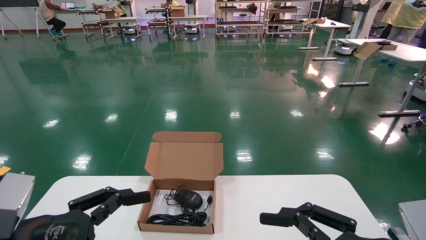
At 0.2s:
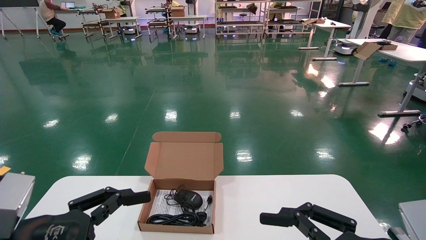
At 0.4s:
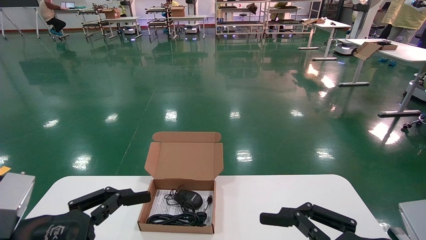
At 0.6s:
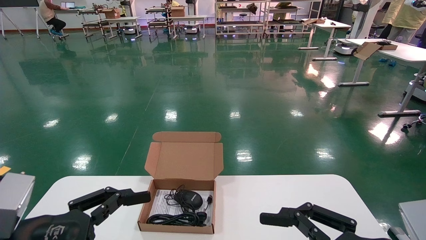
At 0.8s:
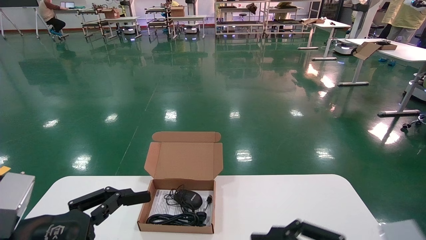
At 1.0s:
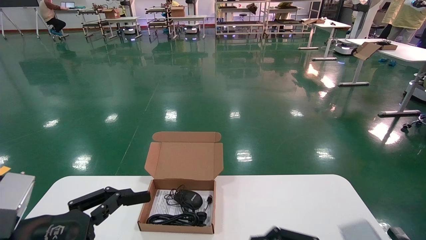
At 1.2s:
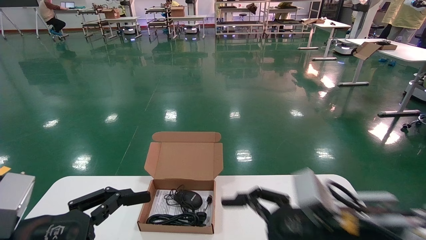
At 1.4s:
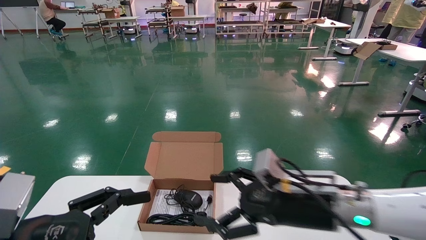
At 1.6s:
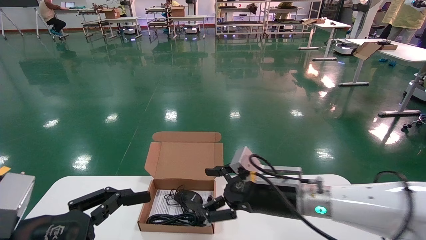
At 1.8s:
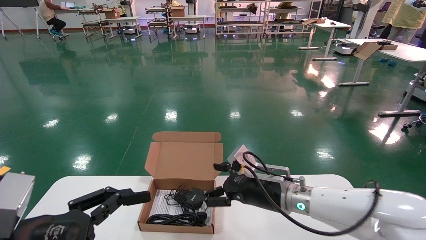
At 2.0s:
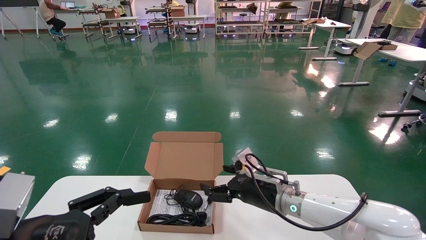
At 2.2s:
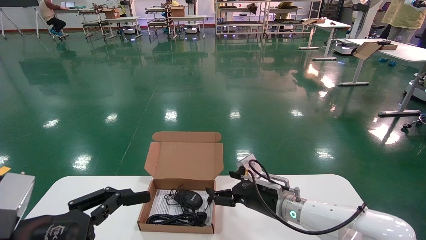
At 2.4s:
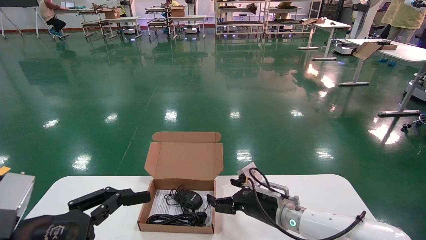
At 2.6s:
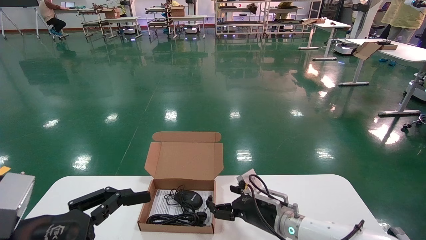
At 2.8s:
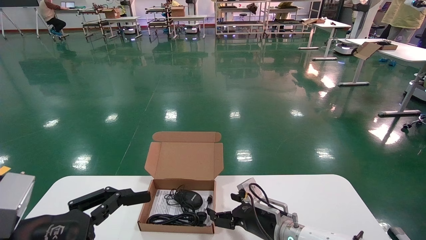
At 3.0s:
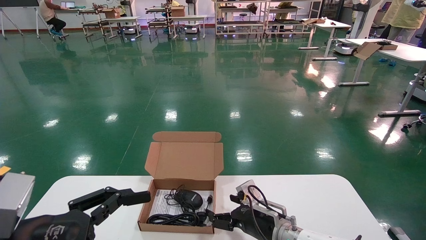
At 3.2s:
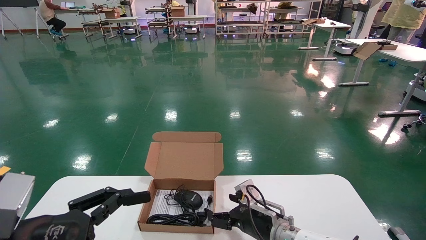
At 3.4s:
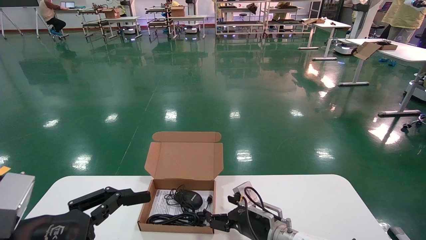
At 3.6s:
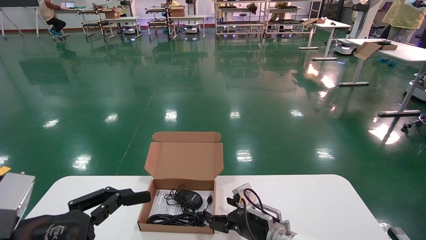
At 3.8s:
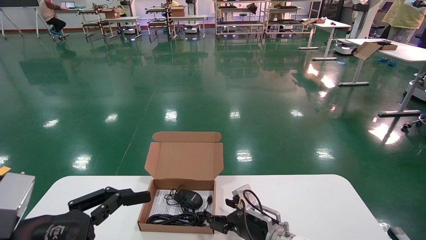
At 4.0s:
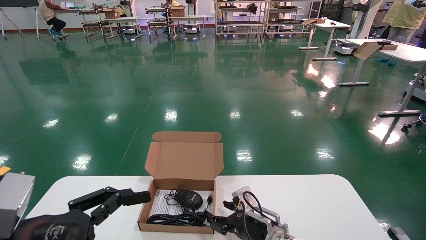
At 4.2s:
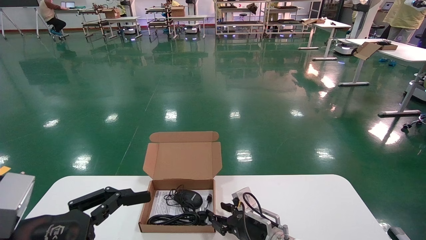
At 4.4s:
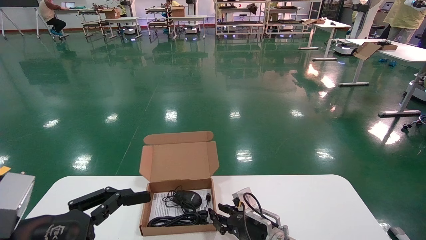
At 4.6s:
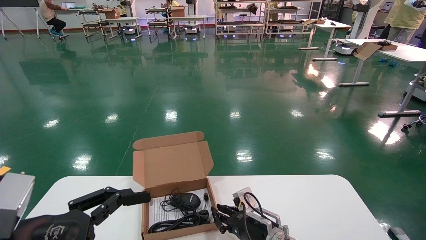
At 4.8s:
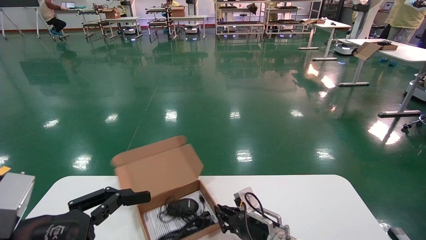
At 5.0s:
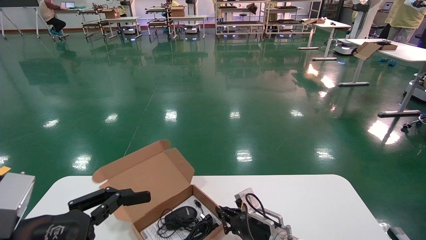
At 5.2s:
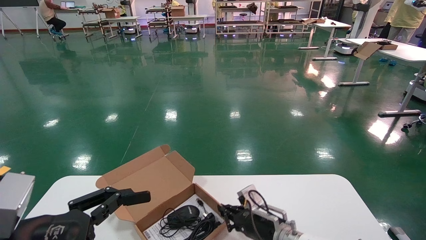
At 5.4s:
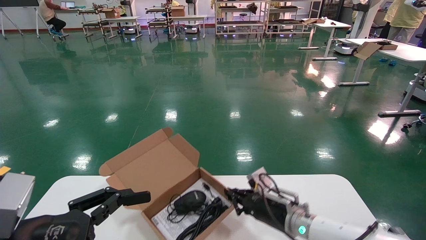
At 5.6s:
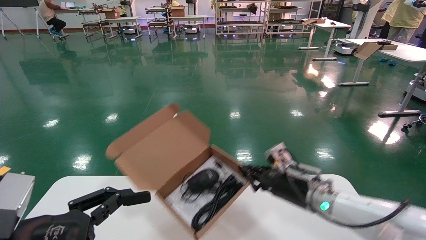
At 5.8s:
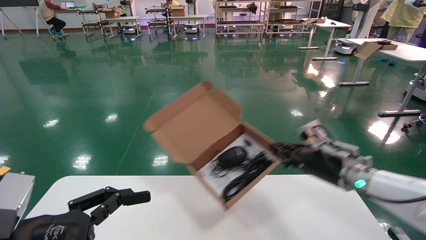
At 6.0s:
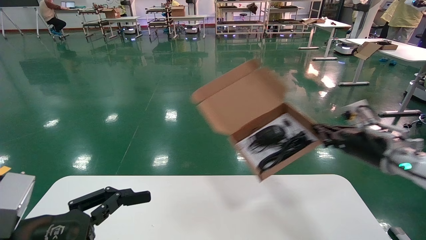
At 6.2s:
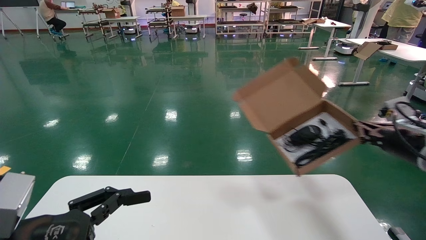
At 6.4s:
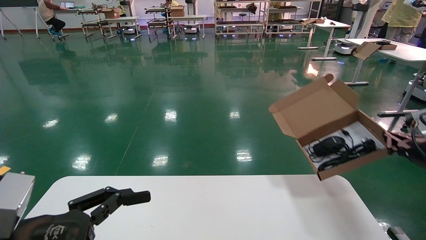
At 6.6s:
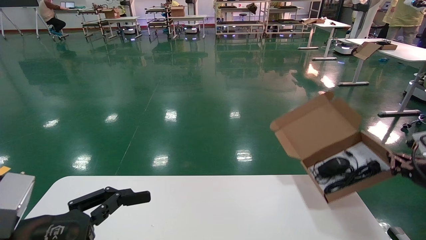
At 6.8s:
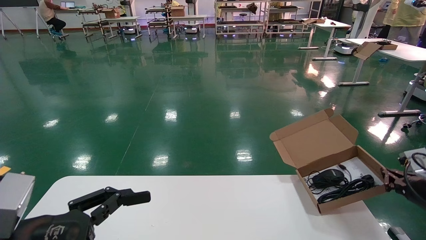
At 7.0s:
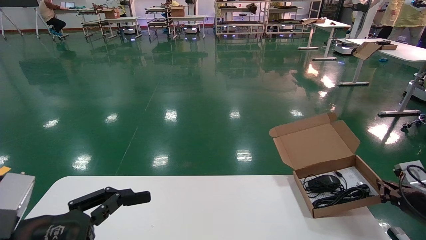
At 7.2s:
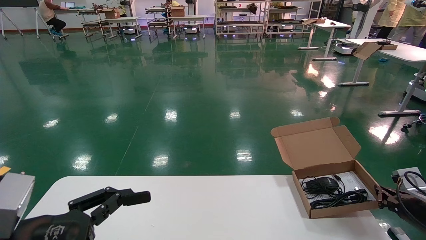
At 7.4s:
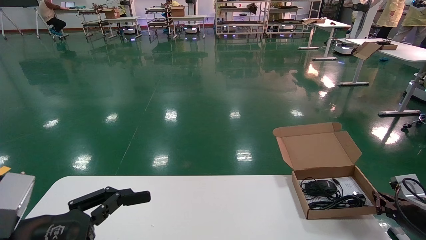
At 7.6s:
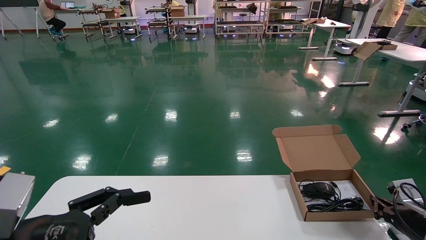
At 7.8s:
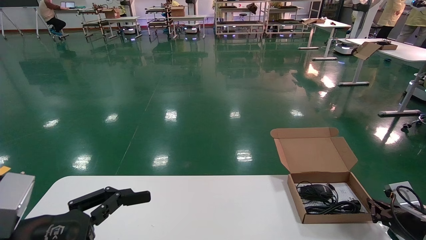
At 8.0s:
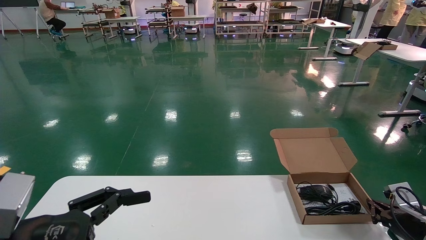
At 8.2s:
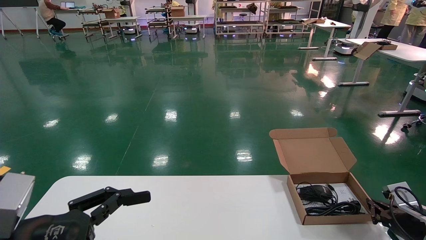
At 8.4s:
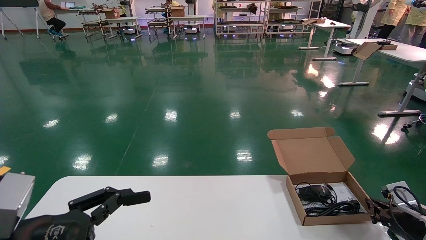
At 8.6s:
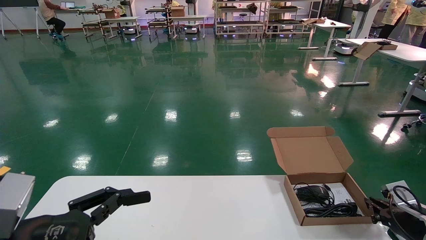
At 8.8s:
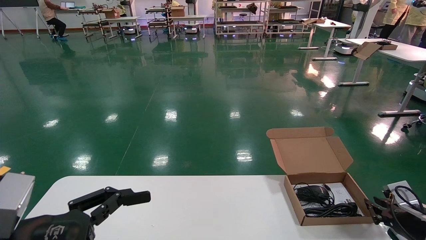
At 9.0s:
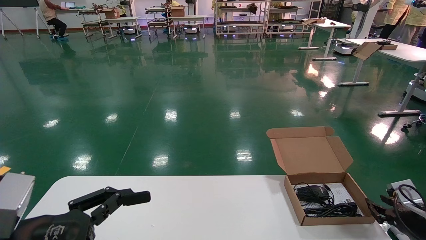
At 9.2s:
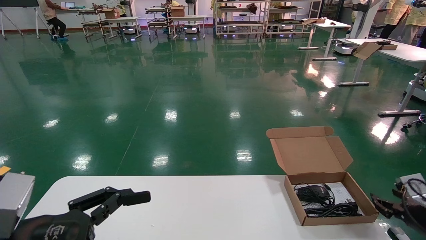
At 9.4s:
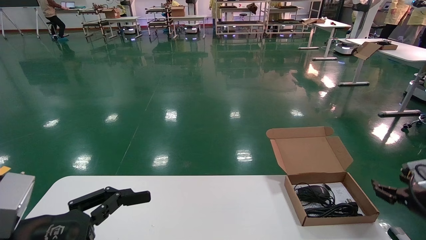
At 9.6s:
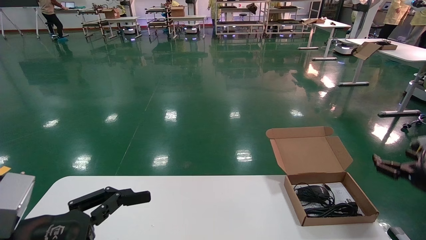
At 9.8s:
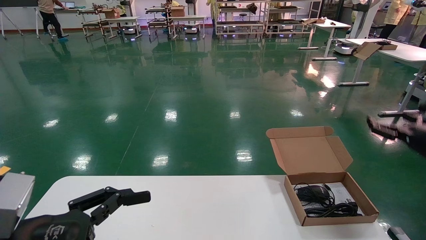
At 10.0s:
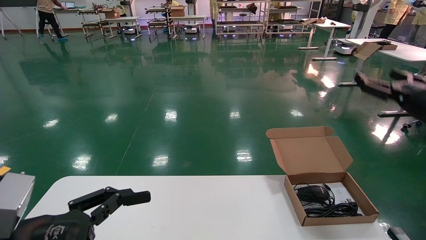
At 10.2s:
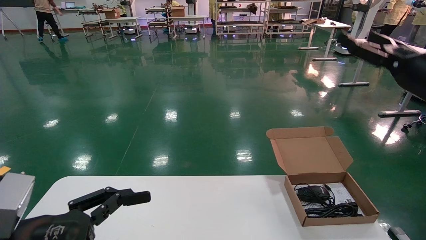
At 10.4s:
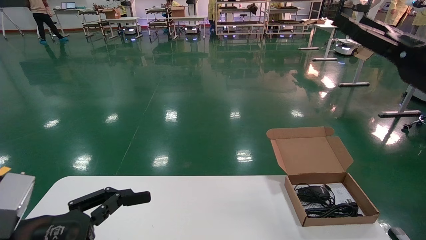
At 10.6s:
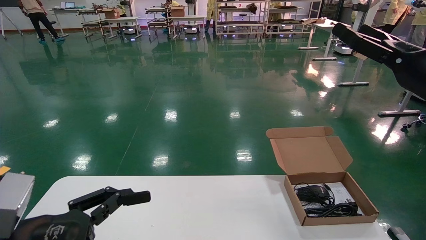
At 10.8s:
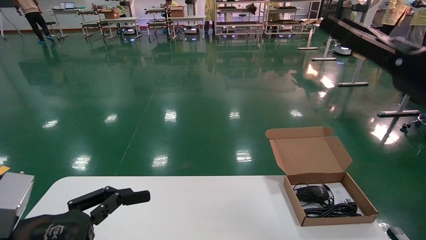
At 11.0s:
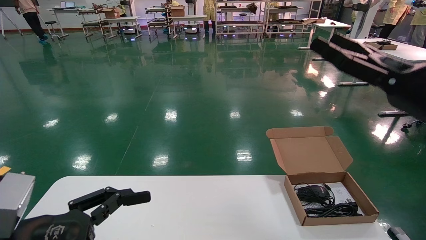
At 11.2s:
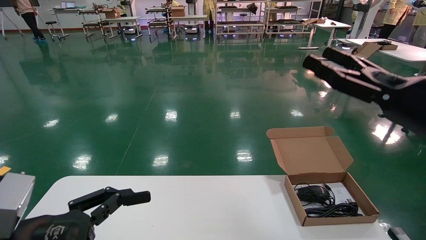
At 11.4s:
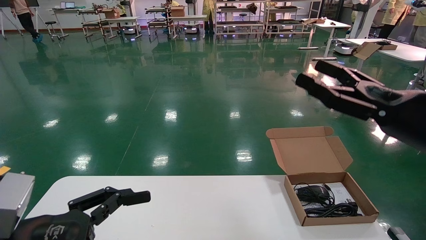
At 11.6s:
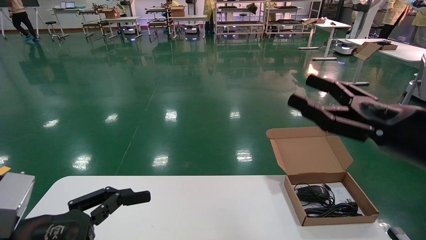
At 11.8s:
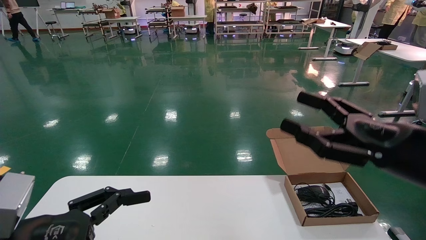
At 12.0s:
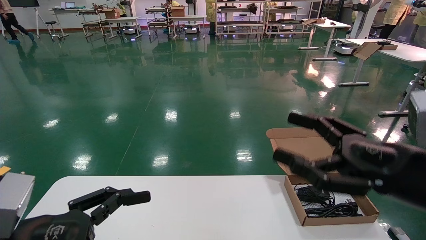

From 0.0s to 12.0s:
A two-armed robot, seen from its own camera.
Task of the whole recording: move the position of the storage box with accessories on the table.
Step, from 1.2s to 5.4s: Grab and pick up the open mouse box from the accessory packaging area.
Step, from 5.6s to 9.0s: Place the open mouse box onto the operation table.
From 0.0s to 1.6s: The right gripper goes some 25 cm forward and to the left.
From 1.6s to 3.0s: The right gripper shifts approximately 15 cm downward and forward.
From 3.0s to 4.4s: The right gripper closes up.
From 4.4s to 6.0s: The right gripper is displaced to the right and upward by some 30 cm, and closes up.
From 6.0s to 7.6s: The right gripper shifts some 20 cm downward and to the right.
From 7.6s to 9.0s: The two grippers keep their place.
From 9.0s to 10.4s: The right gripper heads upward, covering roughly 30 cm, and opens.
From 10.4s to 12.0s: The right gripper heads downward, backward and to the left, covering approximately 15 cm.

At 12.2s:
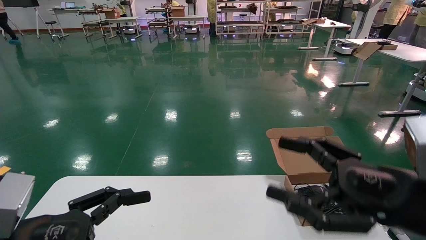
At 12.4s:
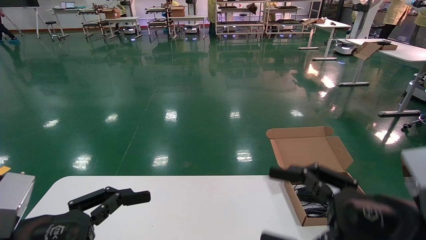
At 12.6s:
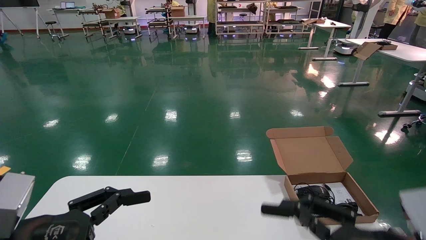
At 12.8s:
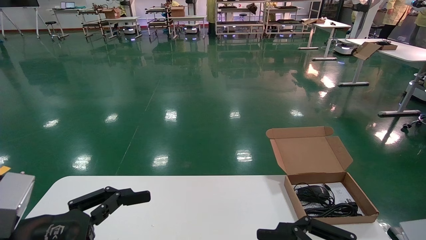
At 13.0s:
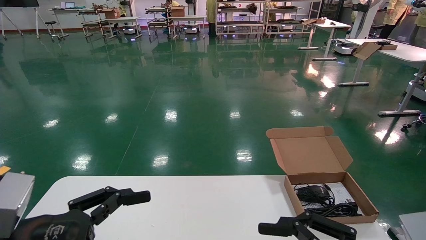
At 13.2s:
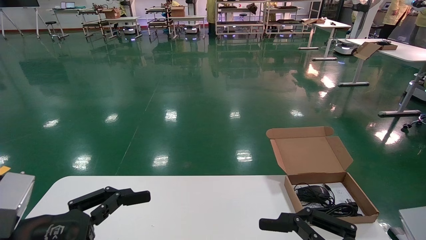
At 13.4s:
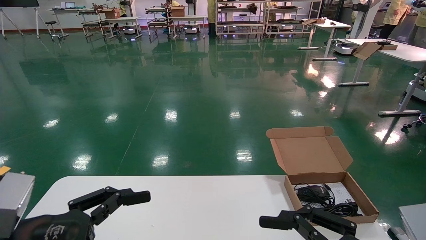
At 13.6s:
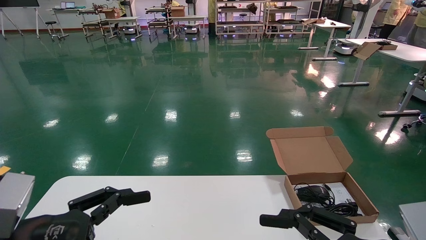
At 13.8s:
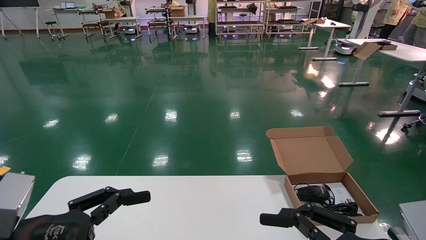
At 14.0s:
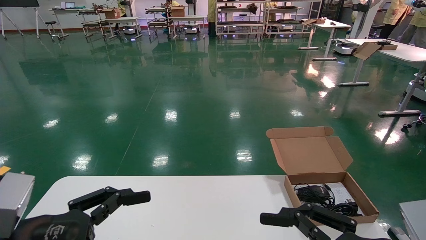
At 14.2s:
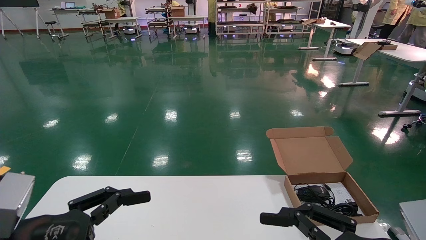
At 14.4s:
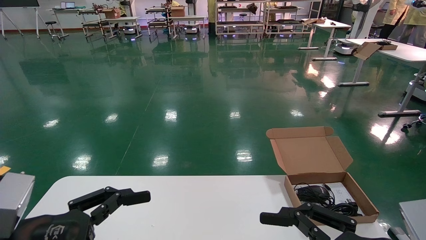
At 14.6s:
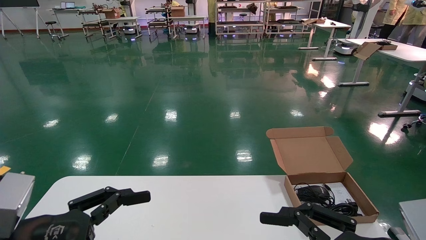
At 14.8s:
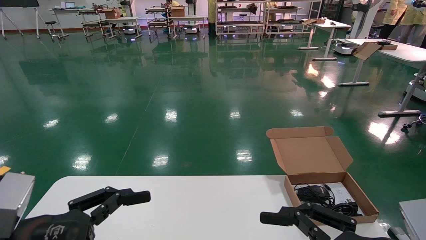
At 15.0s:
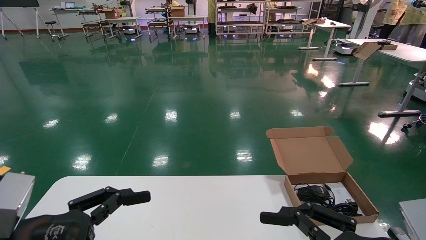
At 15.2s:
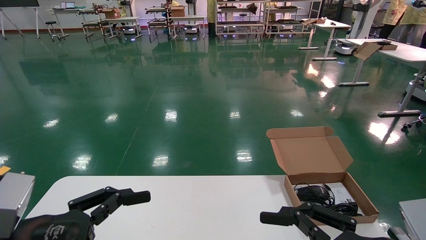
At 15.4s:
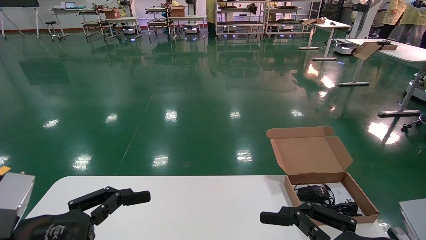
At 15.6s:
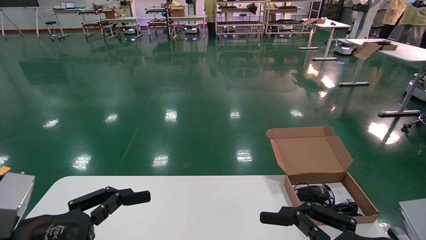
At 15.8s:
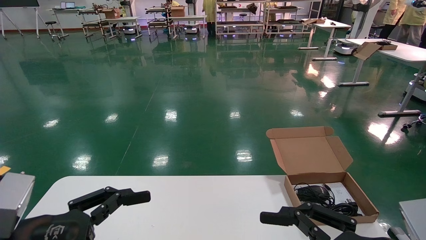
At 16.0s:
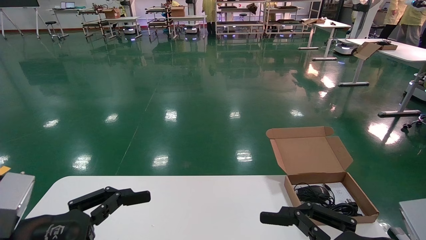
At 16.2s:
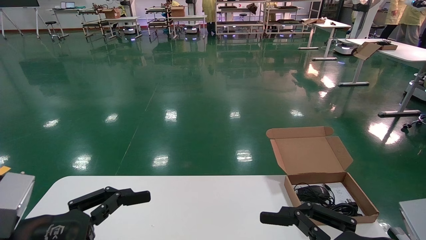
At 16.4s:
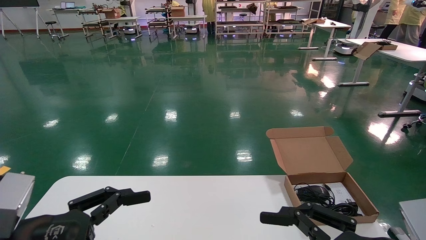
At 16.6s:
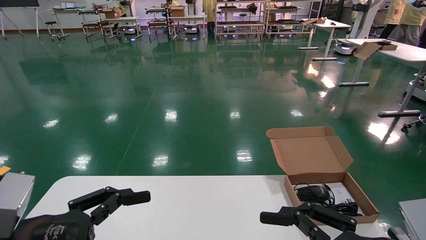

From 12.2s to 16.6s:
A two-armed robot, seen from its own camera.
Task of the whole recording: move the position of the storage box with accessories on the table.
From 12.2s to 13.6s: The right gripper shifts by approximately 5 cm.
From 13.6s to 16.6s: Both grippers stay about where they are.
